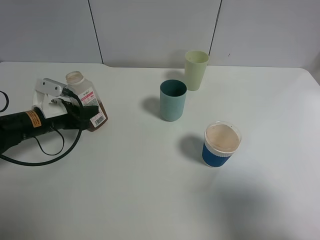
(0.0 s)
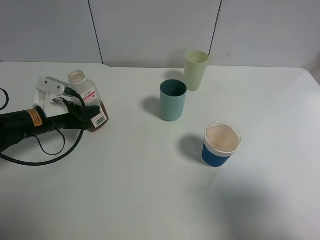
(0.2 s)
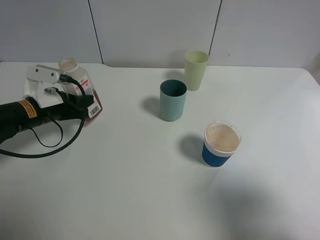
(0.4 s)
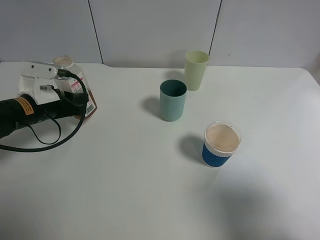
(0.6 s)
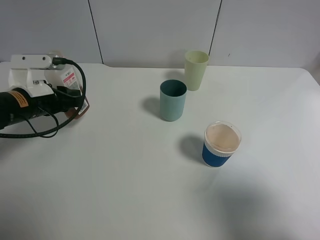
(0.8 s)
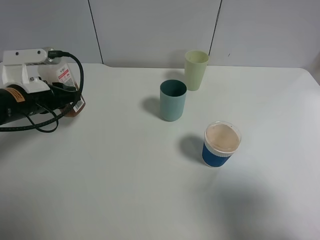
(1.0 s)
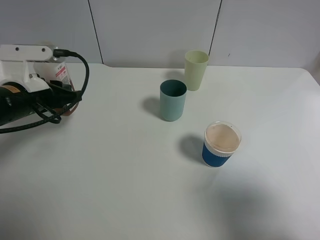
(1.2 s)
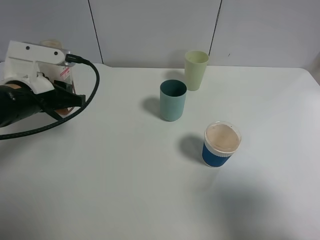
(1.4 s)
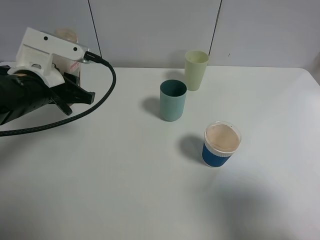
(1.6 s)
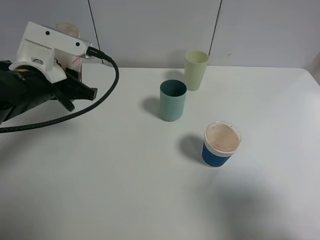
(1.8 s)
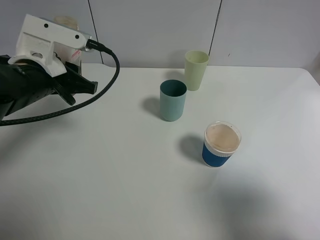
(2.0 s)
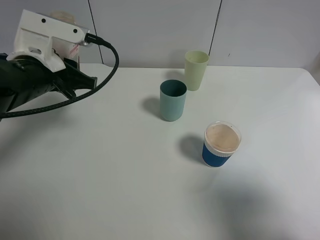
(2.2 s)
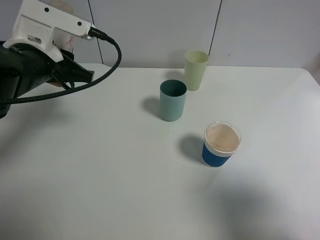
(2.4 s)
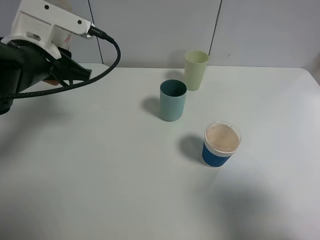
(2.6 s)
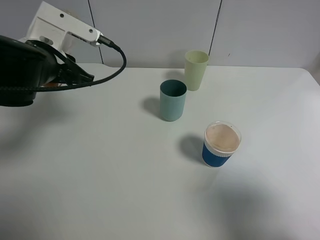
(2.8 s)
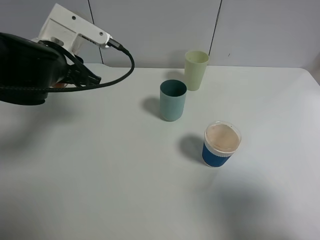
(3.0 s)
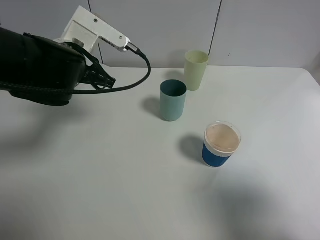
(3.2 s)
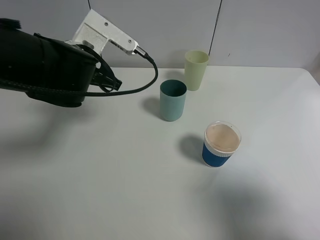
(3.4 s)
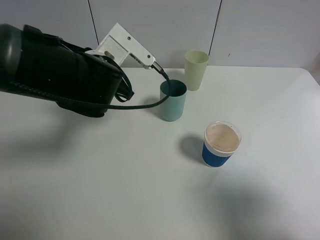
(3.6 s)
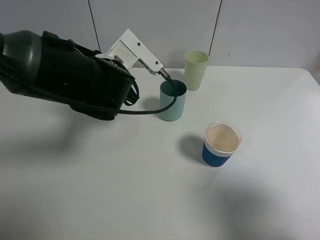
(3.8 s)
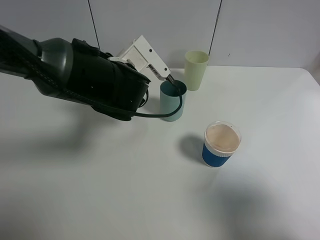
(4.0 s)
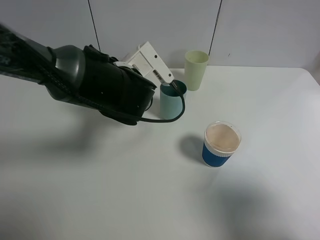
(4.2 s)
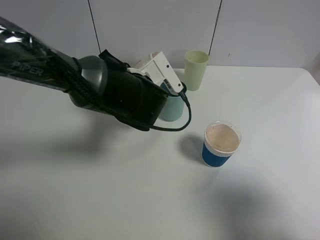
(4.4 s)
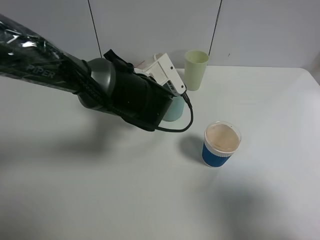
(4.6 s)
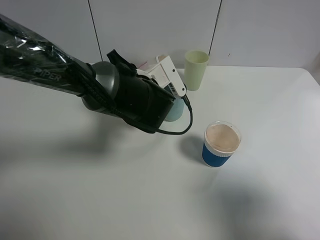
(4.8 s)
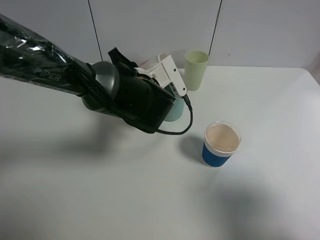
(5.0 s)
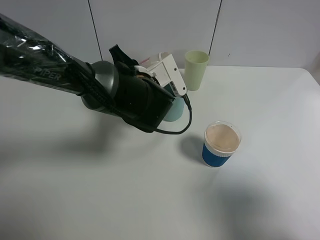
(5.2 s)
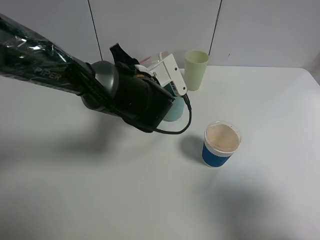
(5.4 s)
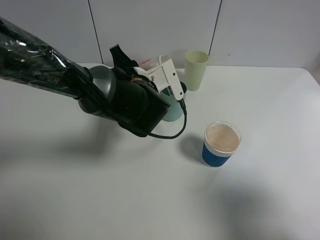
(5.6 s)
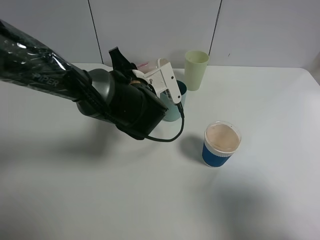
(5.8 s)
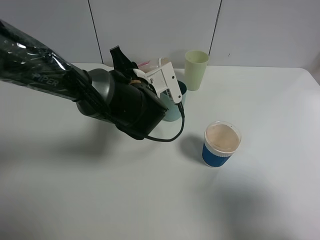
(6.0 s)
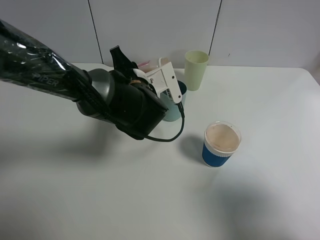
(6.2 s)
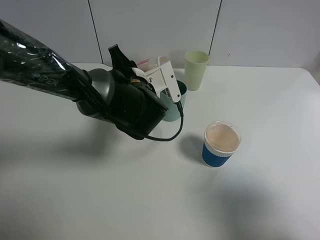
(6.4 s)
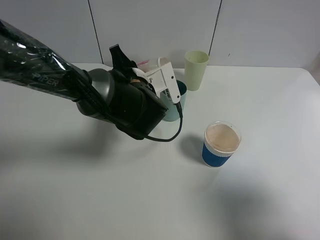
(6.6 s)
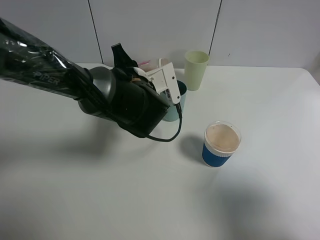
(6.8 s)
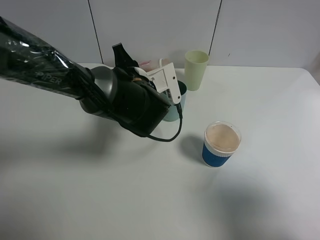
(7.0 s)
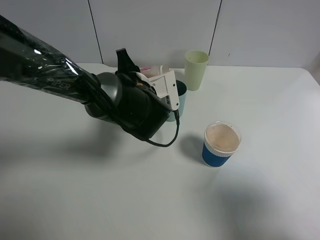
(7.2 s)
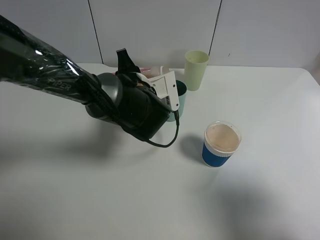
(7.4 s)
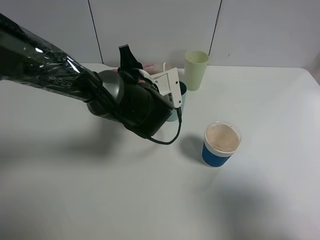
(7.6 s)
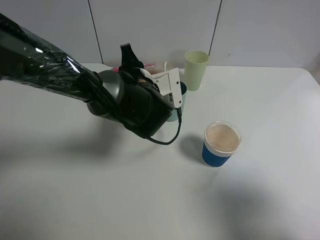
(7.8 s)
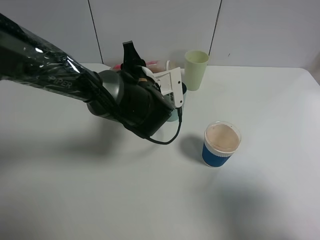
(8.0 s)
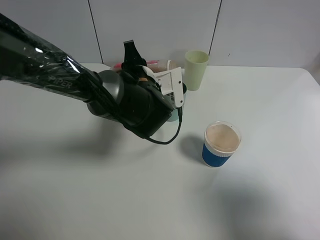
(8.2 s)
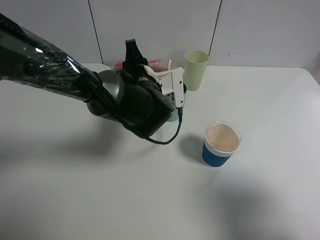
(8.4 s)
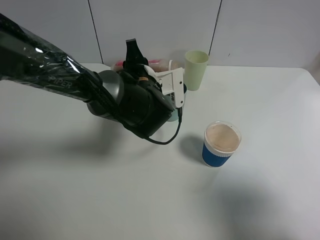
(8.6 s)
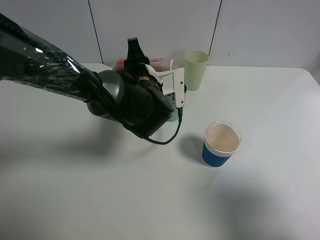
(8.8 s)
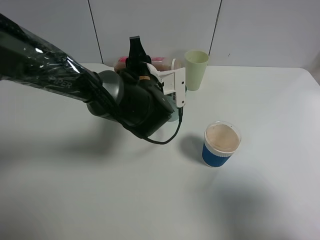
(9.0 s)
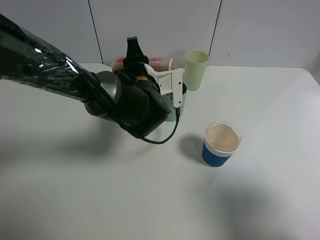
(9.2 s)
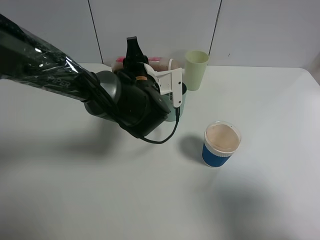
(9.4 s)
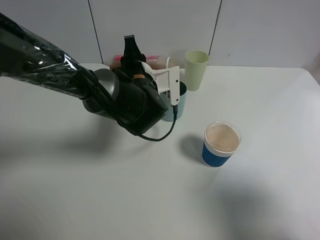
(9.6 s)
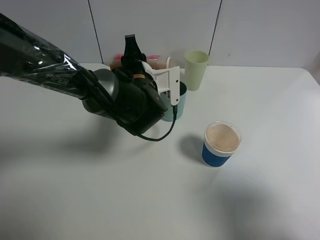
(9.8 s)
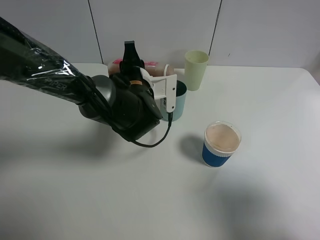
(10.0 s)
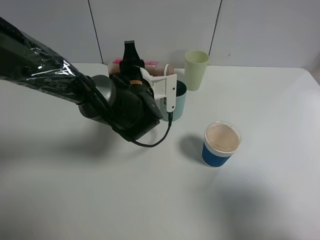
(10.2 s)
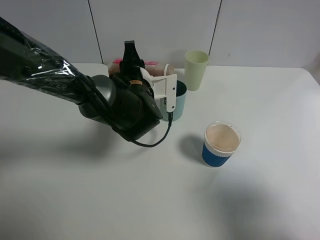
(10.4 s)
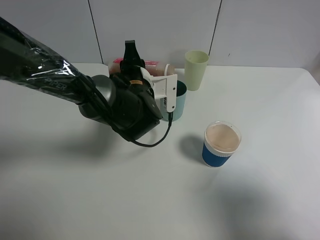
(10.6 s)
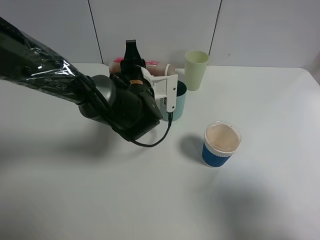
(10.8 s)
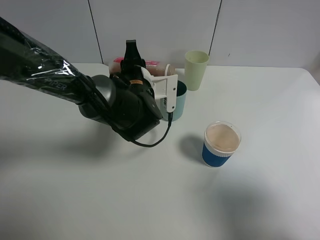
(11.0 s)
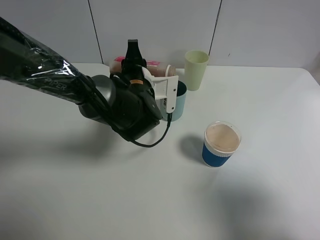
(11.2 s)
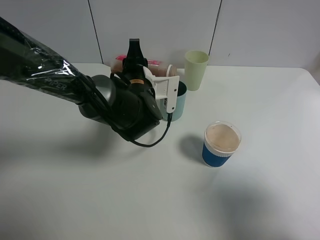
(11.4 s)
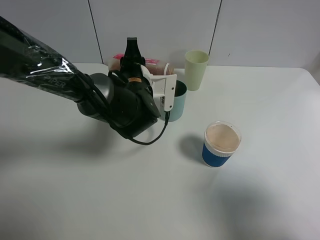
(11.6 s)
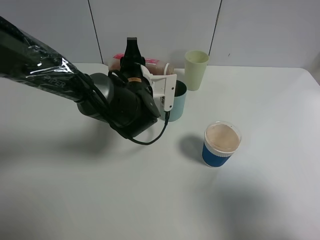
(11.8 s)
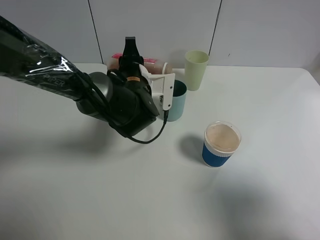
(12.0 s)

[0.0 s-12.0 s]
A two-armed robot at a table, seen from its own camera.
Task of the whole recording: use a gripper to hold the bottle of the drink and pour it into a random cup.
0.0 to 1.6 s: The left gripper heads upward and to the right, covering about 15 cm.
3.0 to 4.4 s: The left gripper travels to the right and downward by about 15 cm.
4.4 to 6.0 s: The grippers move only a little.
6.0 to 10.4 s: The grippers move only a little.
10.4 to 12.0 s: Neither gripper changes place.

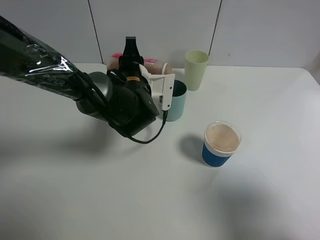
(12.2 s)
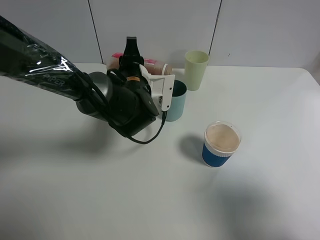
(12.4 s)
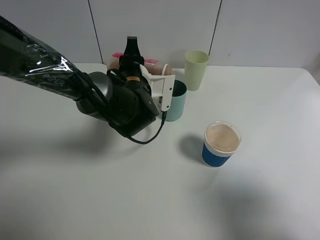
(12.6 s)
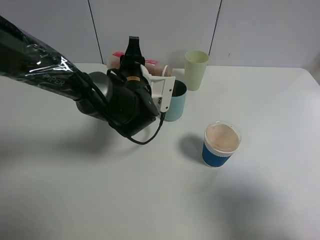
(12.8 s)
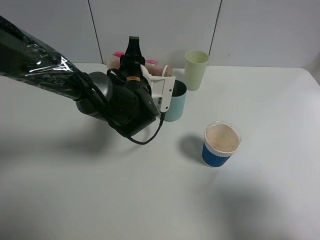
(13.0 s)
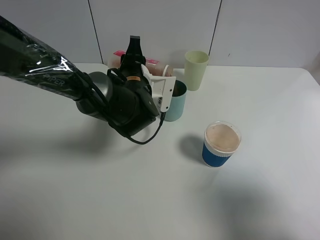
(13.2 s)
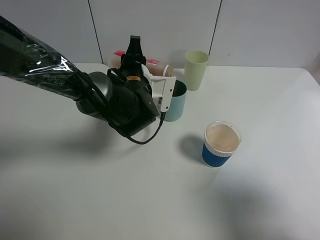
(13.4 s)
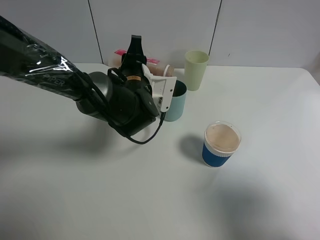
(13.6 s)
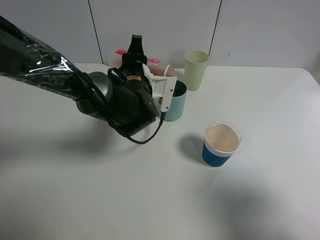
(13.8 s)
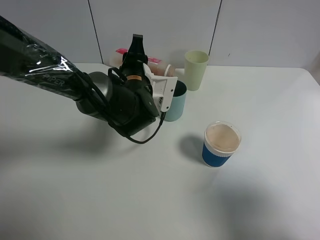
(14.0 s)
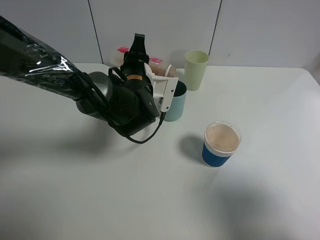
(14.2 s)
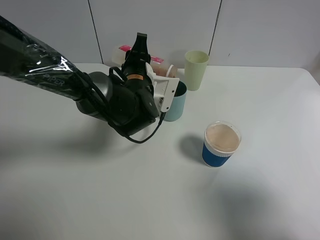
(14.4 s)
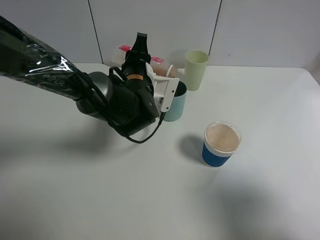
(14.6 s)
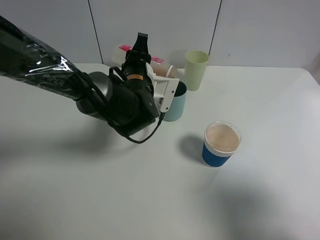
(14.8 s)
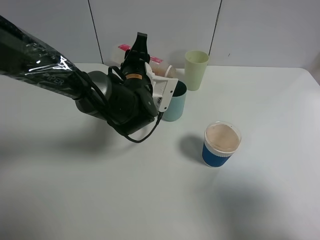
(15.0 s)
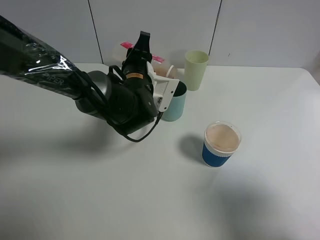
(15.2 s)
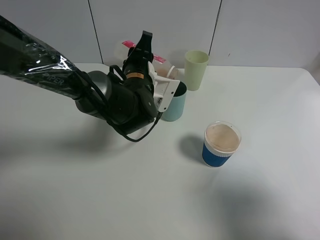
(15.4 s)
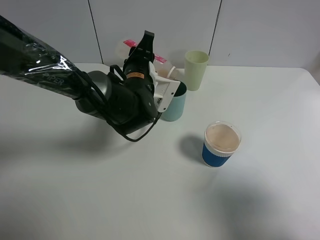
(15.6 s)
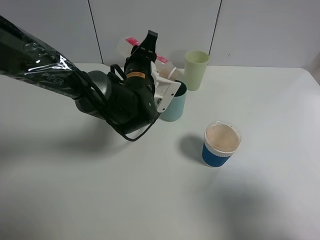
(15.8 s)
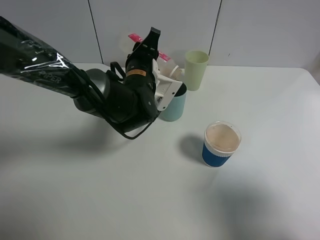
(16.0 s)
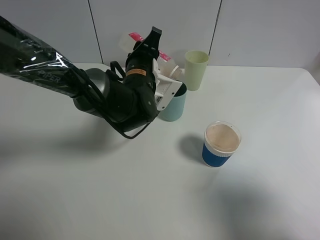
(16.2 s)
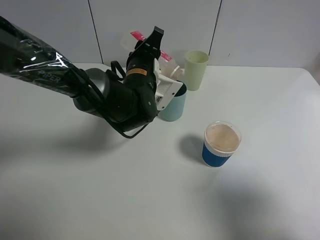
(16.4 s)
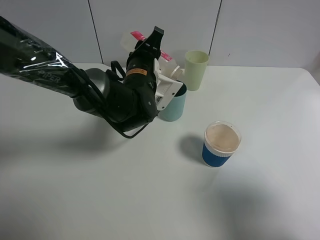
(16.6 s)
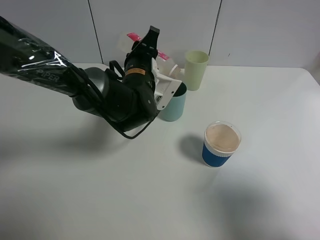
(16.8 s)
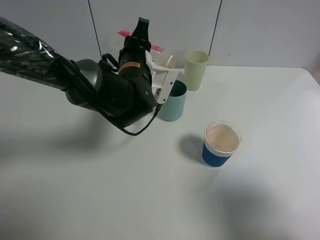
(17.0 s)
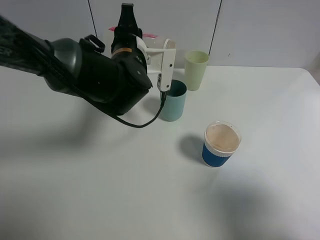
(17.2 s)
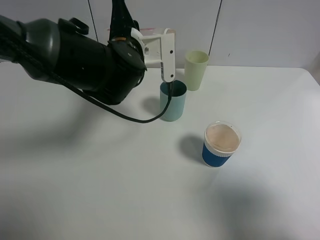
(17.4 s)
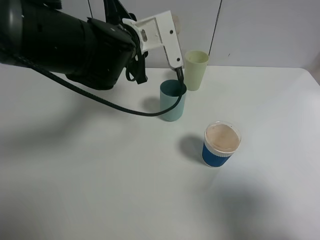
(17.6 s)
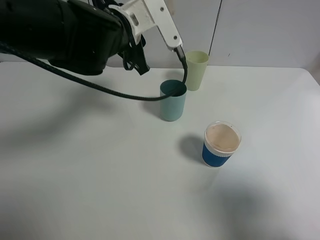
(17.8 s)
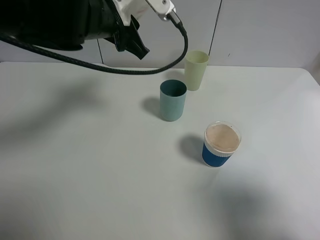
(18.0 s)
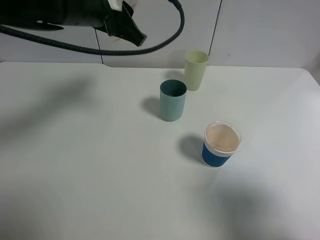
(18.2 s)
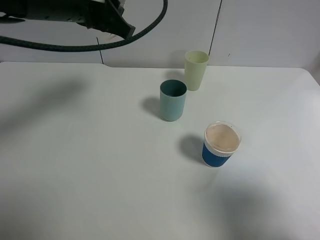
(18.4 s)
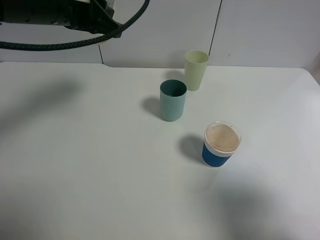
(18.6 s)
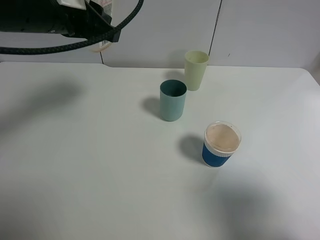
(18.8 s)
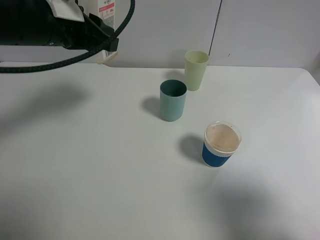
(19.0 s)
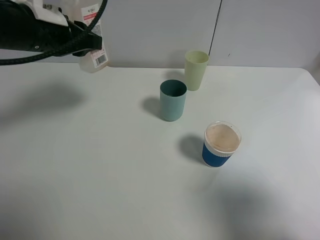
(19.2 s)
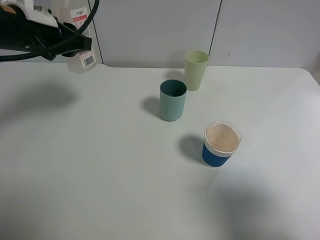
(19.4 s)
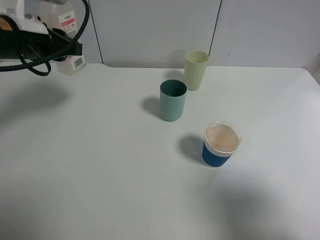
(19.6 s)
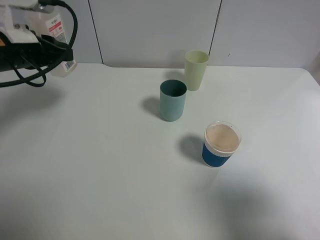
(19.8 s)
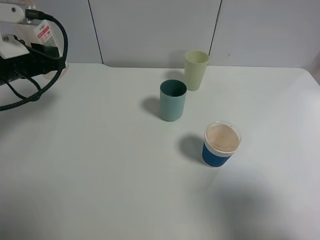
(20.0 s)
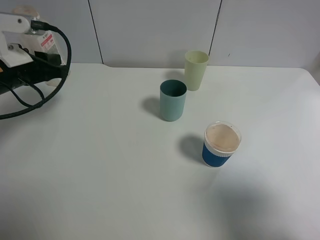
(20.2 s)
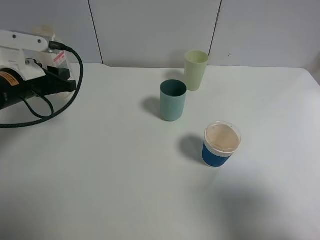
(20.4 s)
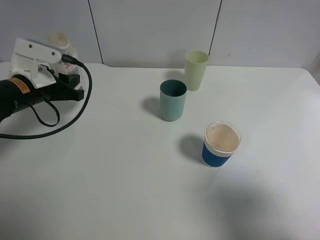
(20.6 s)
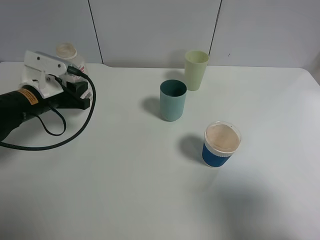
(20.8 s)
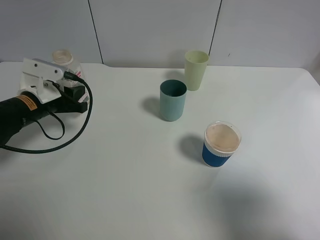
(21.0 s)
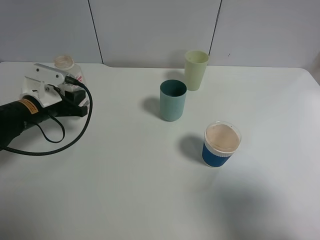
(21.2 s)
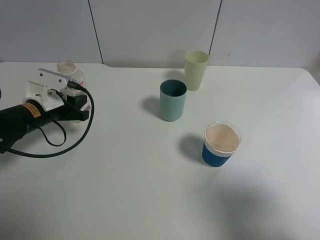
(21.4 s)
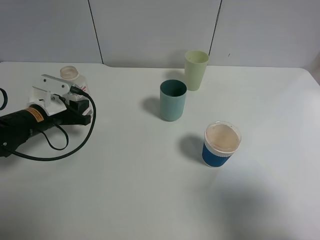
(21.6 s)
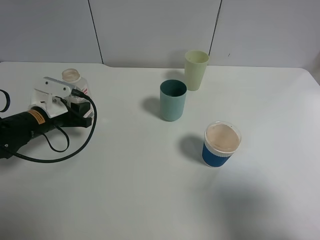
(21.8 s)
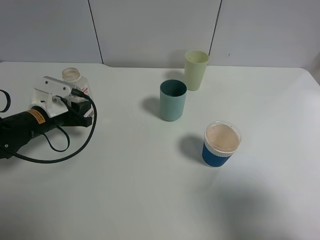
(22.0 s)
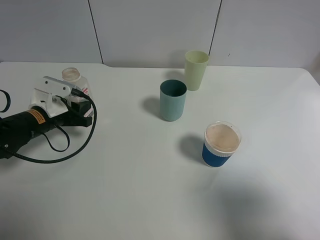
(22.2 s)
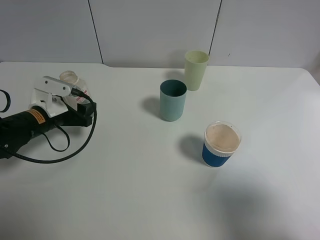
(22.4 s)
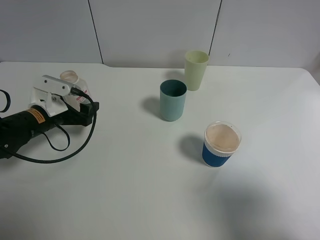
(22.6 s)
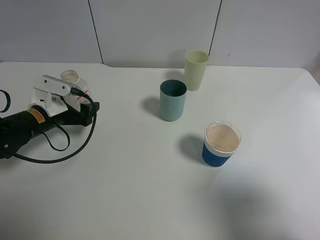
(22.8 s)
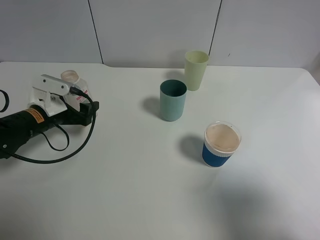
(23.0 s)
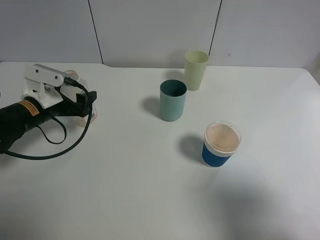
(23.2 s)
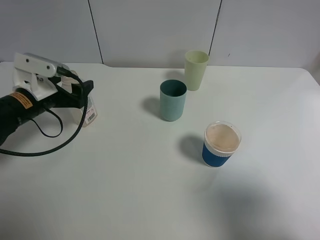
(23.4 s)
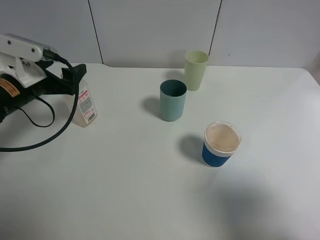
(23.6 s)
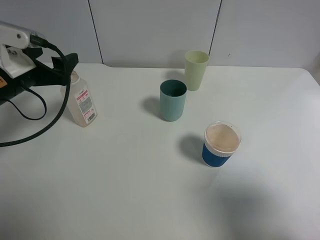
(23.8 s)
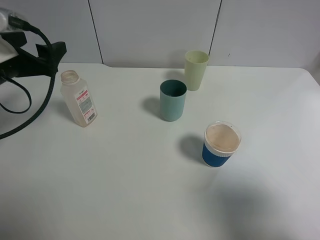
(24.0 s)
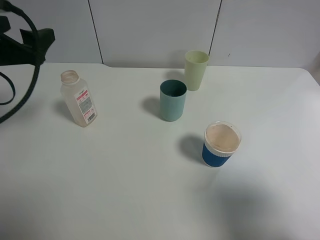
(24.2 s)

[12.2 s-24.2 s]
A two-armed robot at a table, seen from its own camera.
Task of the whole recording: use a gripper to hold the bottle of the drink and pour it into a random cup.
Step, 12.2 to 17.0 s: Pour the cranberry juice into the cyan cup with the left gripper.
Step, 17.2 to 22.6 s: Place the cranberry juice bottle on the table with the left gripper.
12.2 to 15.2 s: The grippers make only small movements.
15.2 to 16.6 s: The grippers move only a little.
16.6 to 18.2 s: The left gripper is displaced upward and to the left by approximately 15 cm.
18.2 to 19.8 s: The left gripper is displaced to the left and downward by about 15 cm.
19.8 to 21.2 s: The left gripper is displaced downward by approximately 15 cm.
21.2 to 22.6 s: The left gripper opens.
22.6 to 24.2 s: The left gripper goes about 20 cm upward.
